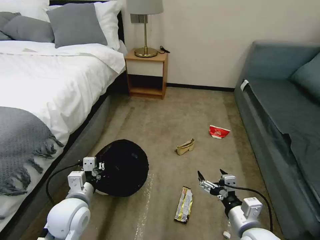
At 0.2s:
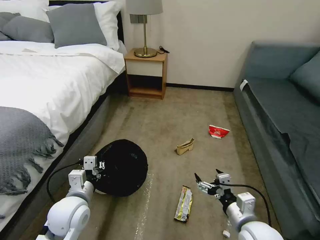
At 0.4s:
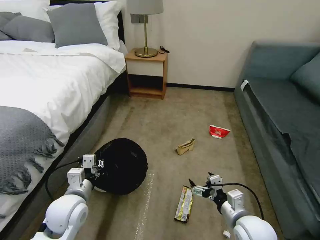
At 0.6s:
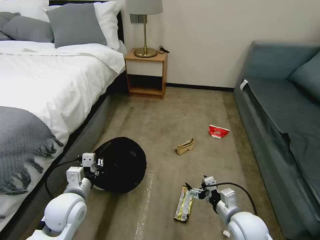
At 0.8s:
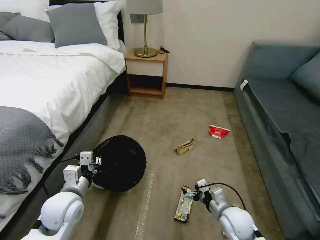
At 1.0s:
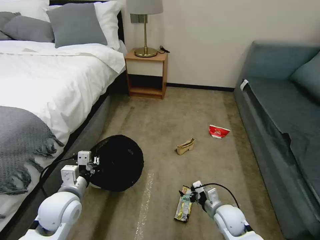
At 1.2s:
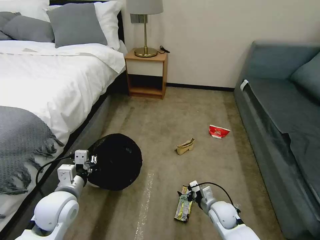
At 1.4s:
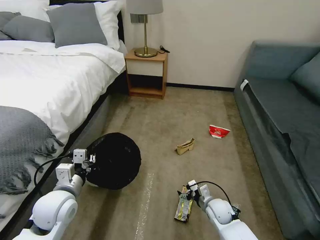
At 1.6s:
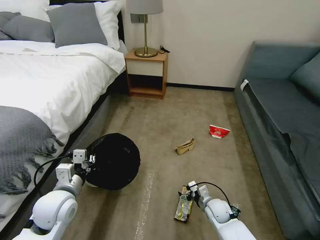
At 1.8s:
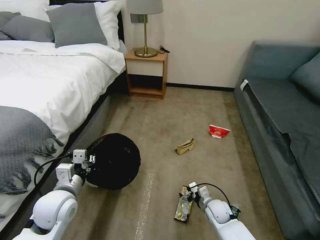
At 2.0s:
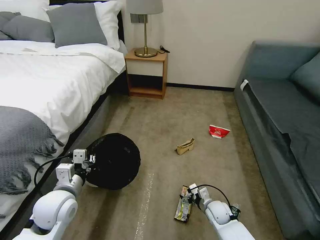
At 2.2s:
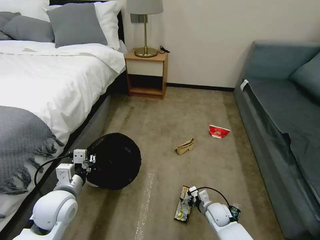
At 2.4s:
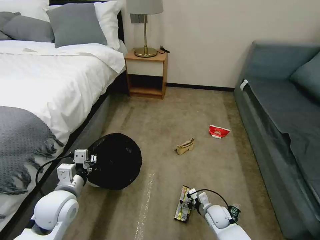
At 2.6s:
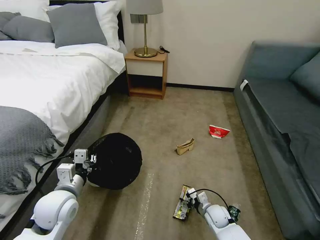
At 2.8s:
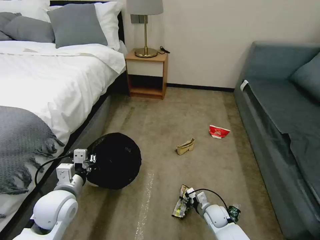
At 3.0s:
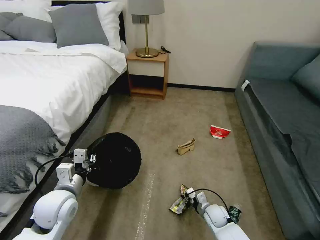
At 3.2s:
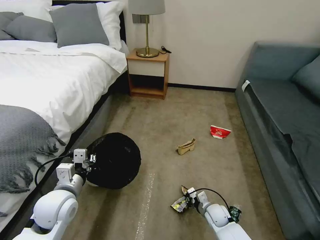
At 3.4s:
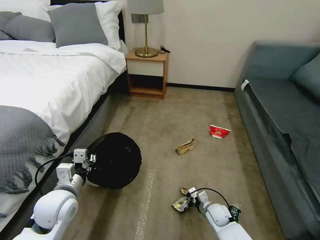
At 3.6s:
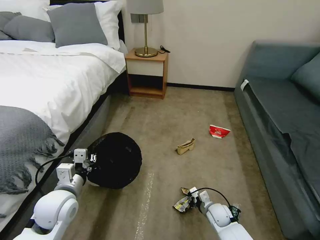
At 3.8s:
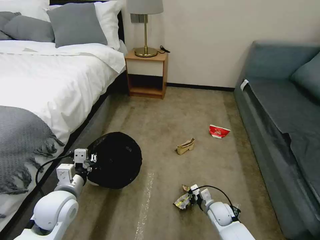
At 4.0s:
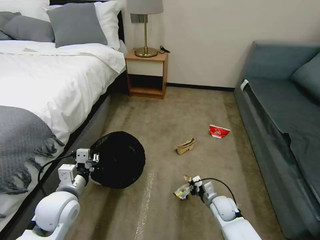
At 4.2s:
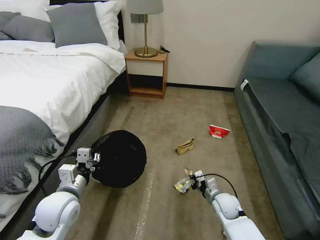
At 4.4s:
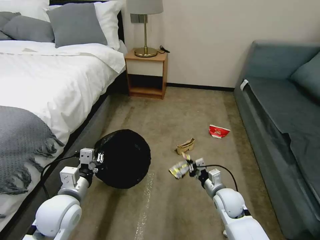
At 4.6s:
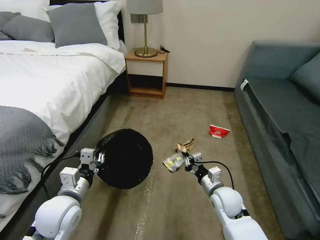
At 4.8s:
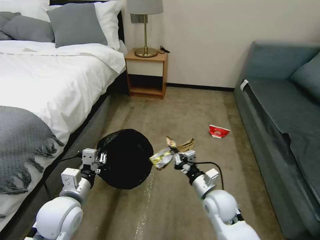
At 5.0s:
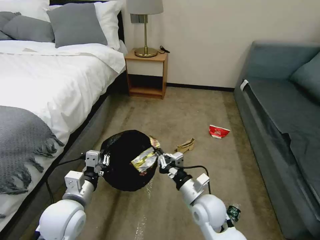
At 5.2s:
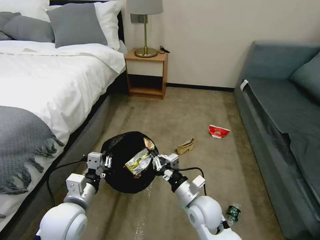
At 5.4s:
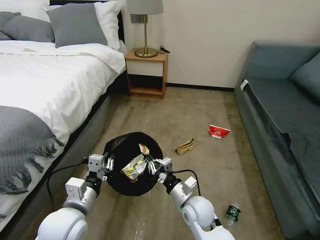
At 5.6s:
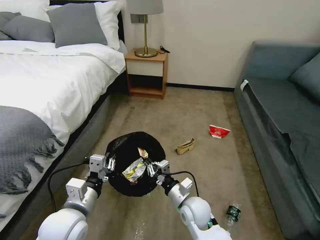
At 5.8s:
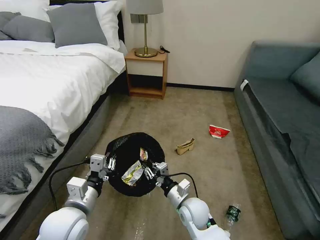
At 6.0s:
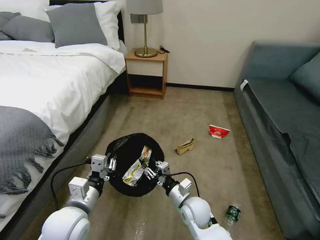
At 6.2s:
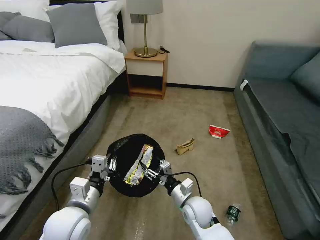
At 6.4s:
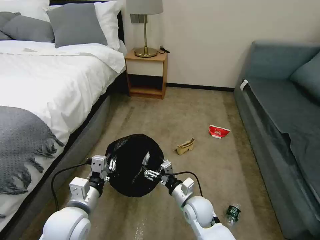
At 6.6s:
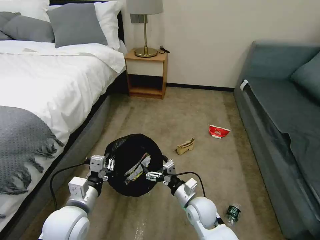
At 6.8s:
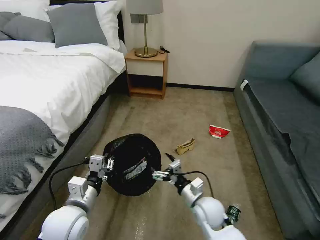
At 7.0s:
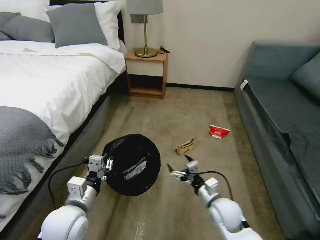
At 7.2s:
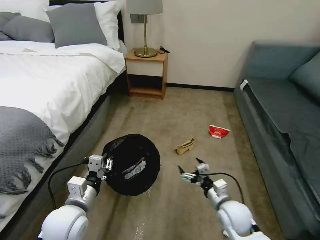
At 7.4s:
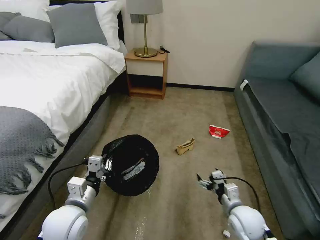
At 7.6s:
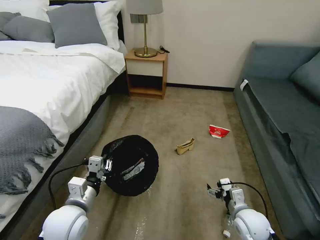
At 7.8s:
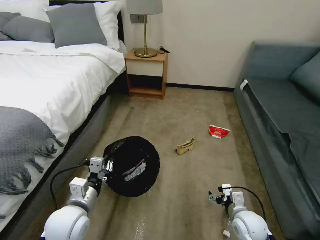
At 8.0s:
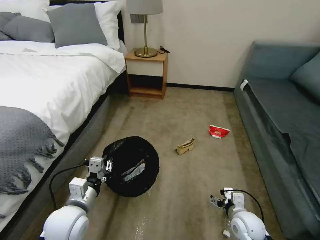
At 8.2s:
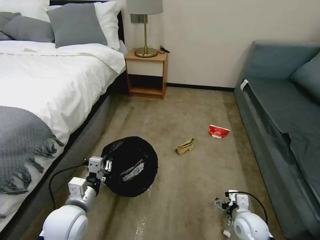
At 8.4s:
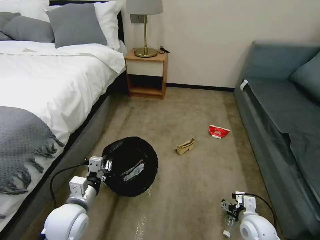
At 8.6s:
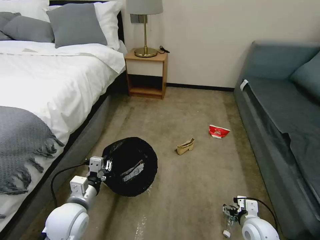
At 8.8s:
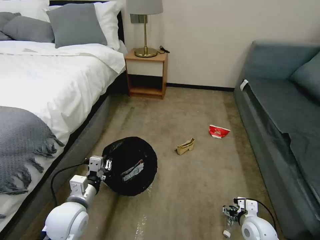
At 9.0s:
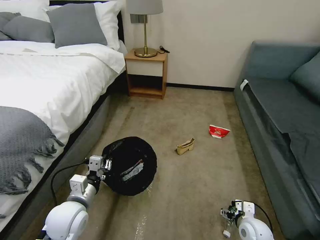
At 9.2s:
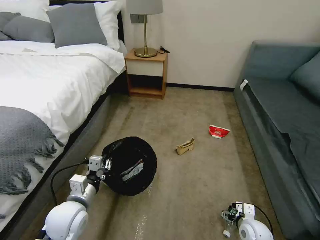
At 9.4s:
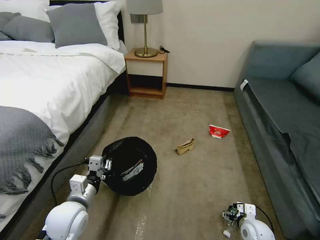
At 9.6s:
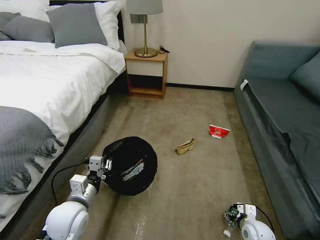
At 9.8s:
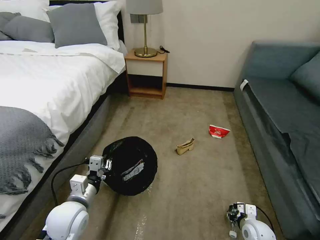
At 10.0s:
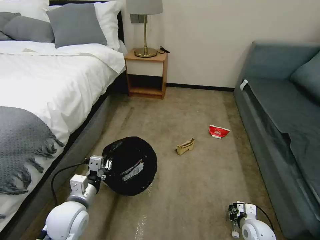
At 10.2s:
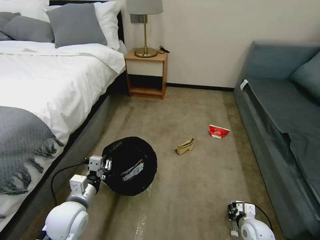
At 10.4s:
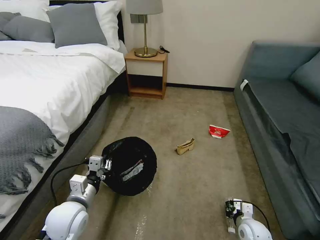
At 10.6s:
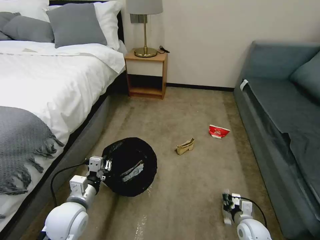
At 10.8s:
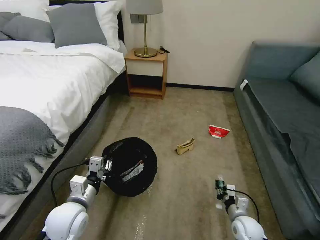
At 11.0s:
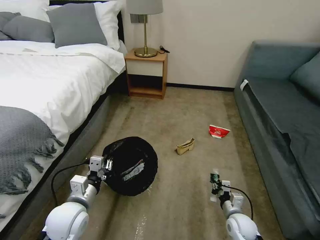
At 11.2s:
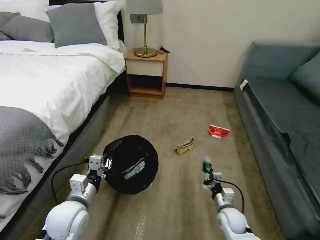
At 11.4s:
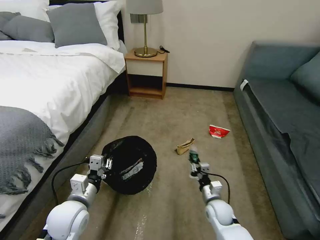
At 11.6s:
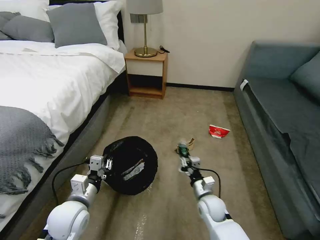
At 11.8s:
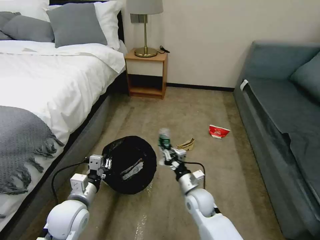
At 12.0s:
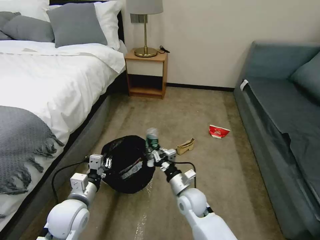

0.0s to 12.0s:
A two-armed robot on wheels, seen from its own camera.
Task of the whole recording: Pick up the trash bin, then pick up the garbage on the floor and place it into the trash bin.
0.0s to 1.6s: The right gripper shifts approximately 25 cm downward and forward.
1.6s to 3.0s: The right gripper closes.
3.0s to 4.4s: The right gripper moves upward, approximately 15 cm.
4.4s to 6.0s: The right gripper shifts about 15 cm to the left, and opens its fingers.
6.0s to 7.6s: The right gripper goes approximately 20 cm to the right, and opens up.
7.6s to 9.0s: The right gripper is displaced downward by roughly 5 cm.
9.0s to 10.4s: The right gripper closes up.
10.4s to 12.0s: The right gripper is displaced to the left and upward by approximately 25 cm.

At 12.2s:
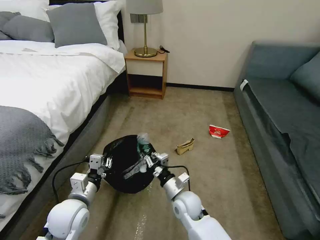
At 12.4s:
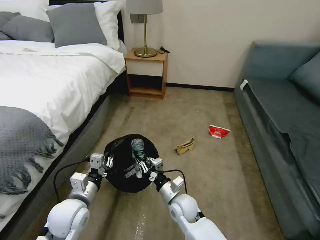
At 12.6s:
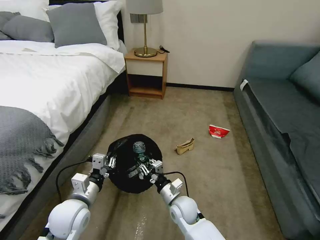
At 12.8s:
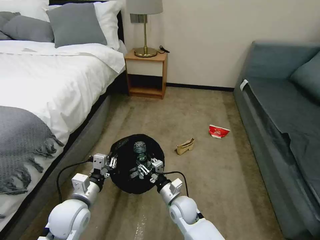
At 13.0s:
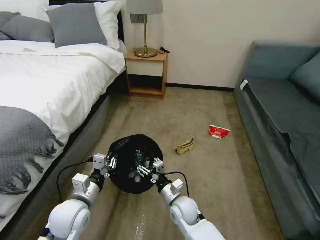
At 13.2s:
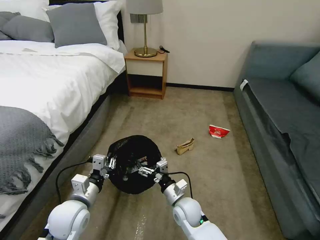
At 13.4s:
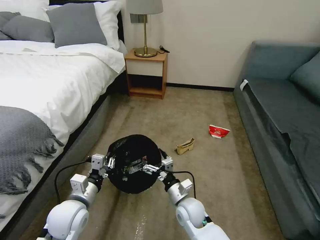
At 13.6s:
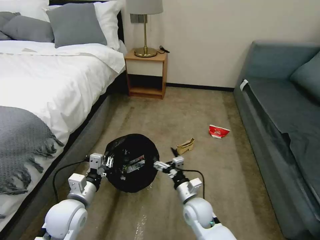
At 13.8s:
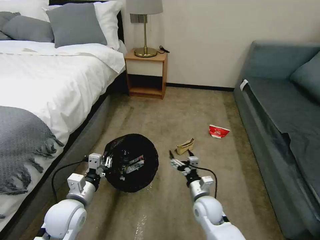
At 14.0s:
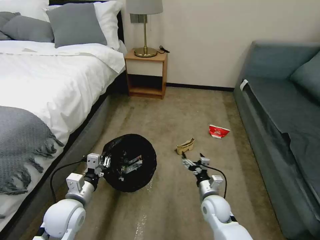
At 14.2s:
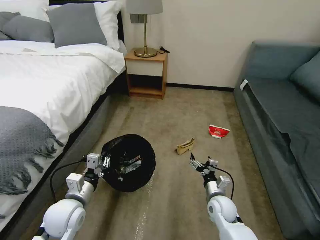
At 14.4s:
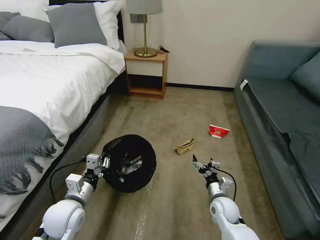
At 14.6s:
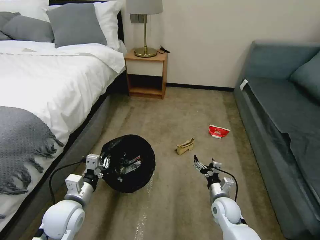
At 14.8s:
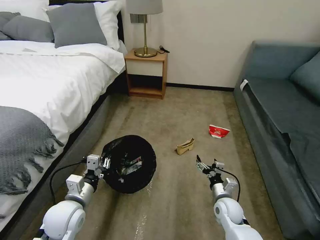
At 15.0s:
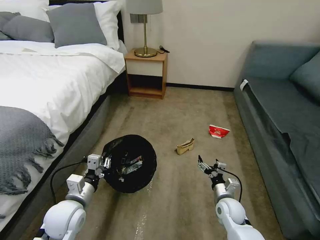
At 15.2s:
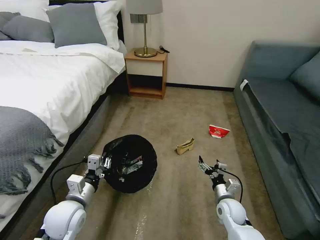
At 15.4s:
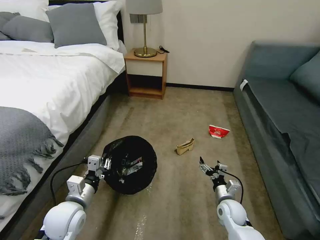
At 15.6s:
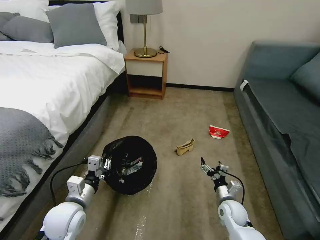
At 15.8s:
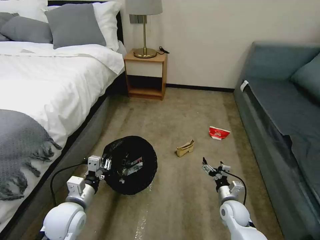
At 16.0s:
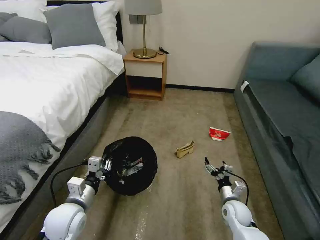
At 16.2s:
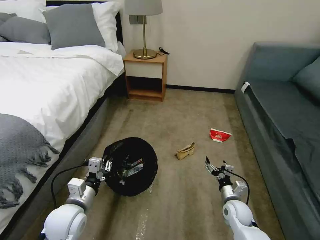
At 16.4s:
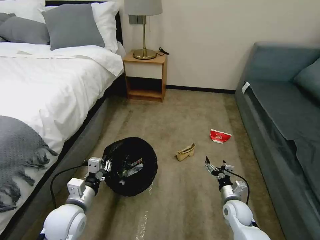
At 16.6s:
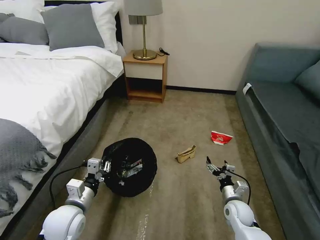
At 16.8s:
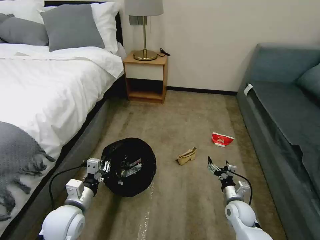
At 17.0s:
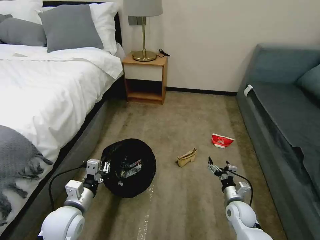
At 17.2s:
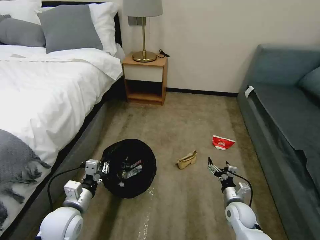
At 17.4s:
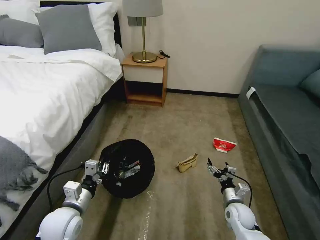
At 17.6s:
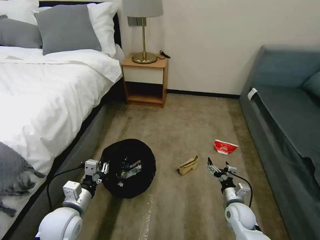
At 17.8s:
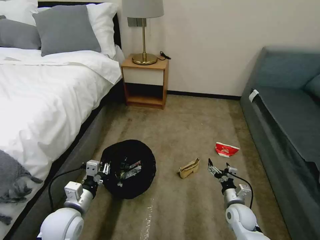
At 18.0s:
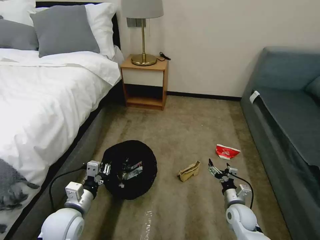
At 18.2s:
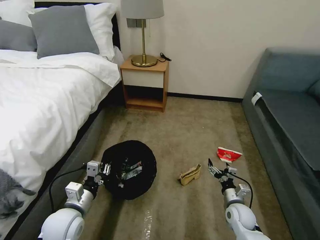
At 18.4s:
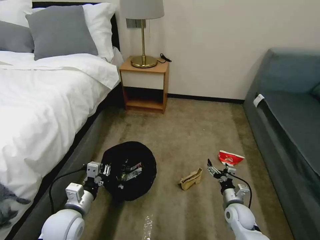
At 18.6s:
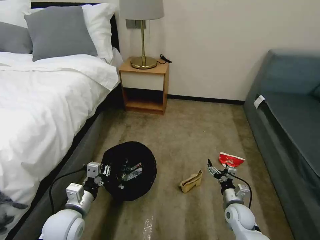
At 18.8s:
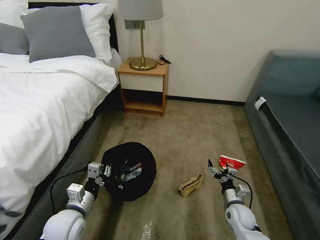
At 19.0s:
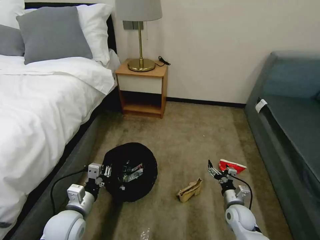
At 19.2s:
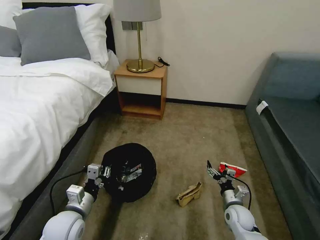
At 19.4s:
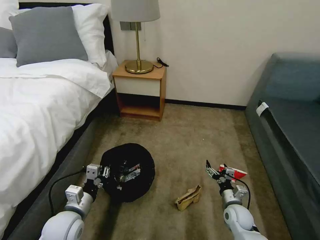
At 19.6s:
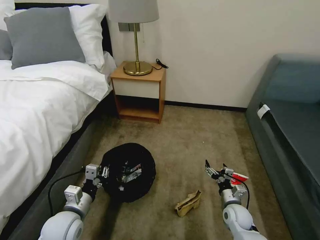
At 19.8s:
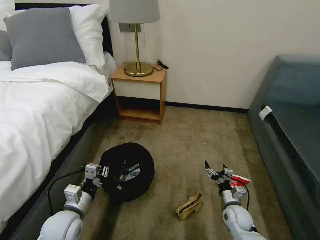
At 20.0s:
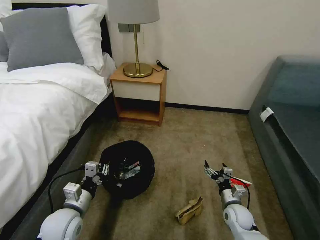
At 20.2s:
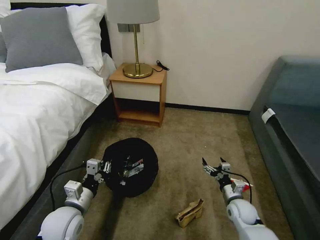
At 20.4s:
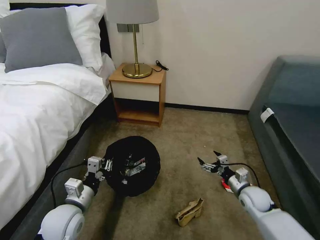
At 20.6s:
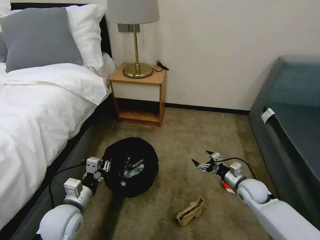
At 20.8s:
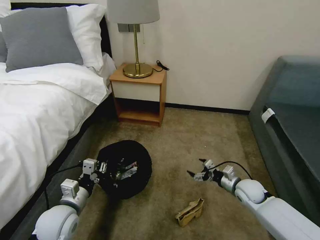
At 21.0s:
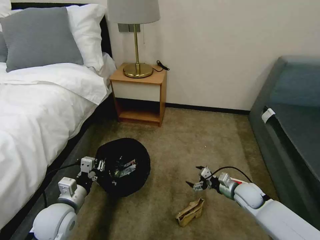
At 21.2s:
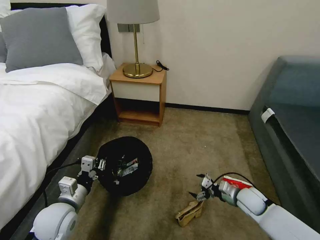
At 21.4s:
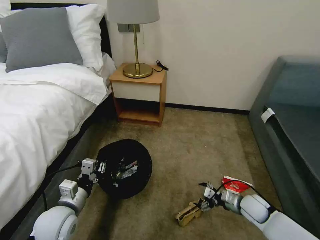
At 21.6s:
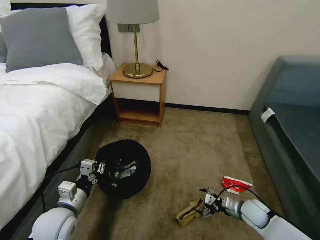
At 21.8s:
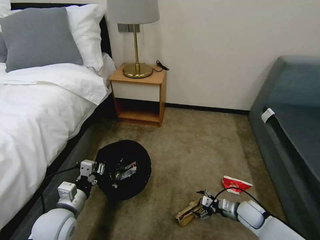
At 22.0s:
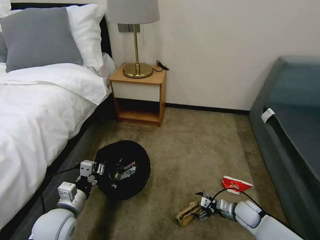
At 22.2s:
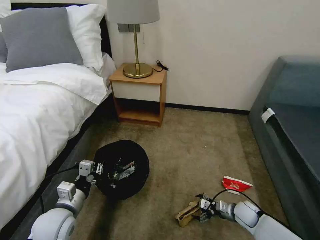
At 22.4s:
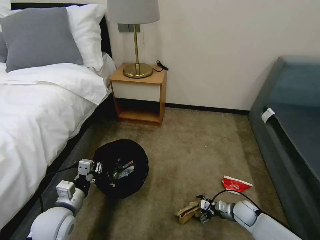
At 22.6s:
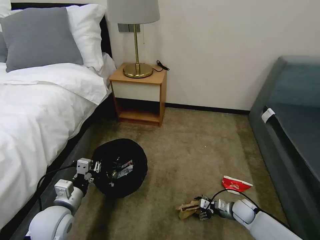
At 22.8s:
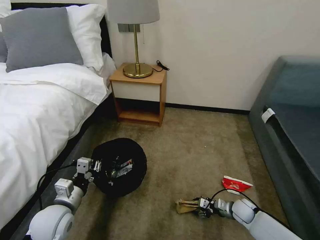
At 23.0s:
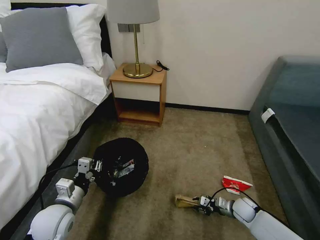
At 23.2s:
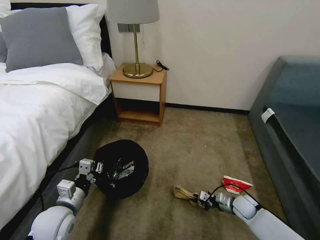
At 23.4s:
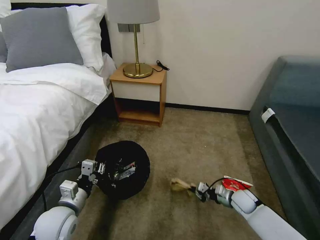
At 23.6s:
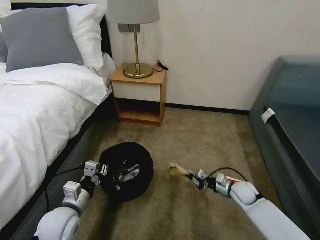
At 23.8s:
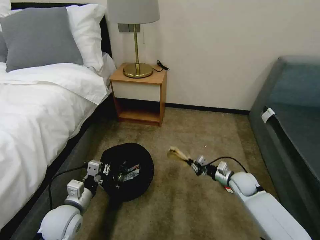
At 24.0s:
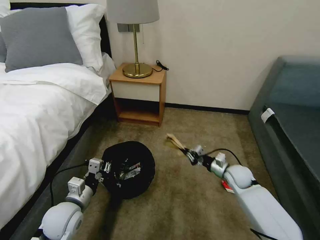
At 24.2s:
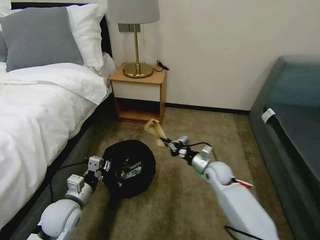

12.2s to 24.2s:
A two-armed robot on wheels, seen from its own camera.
Task of the whole recording: Pick up the trash bin, then pick up the garbage on the floor and place it into the trash bin.
12.2s to 13.8s: The right gripper goes approximately 5 cm to the right, and opens.
13.8s to 15.2s: The right gripper shifts some 10 cm to the right.
15.2s to 16.6s: The grippers make only small movements.
19.8s to 21.2s: The right gripper goes roughly 5 cm upward.
21.2s to 22.6s: The right gripper shifts about 10 cm downward.
22.6s to 24.2s: The right gripper heads upward, to the left and forward, covering approximately 25 cm, and closes up.
